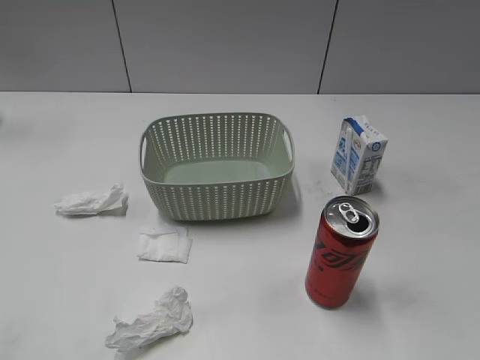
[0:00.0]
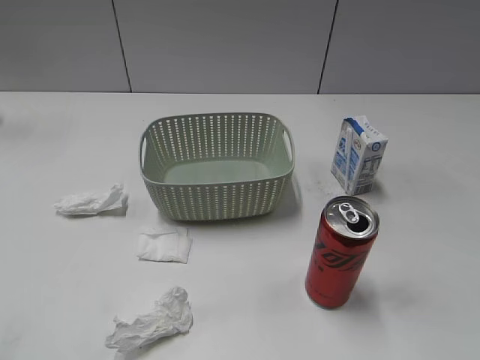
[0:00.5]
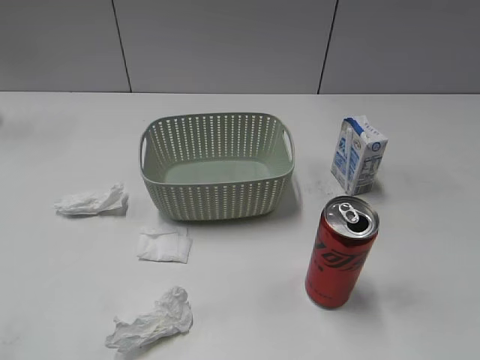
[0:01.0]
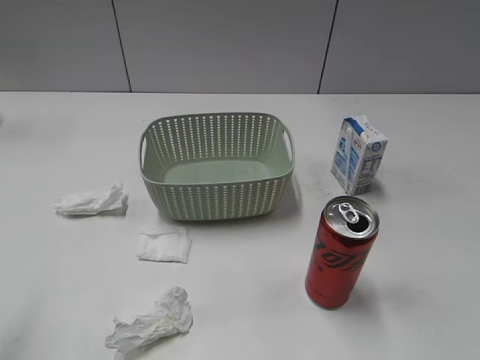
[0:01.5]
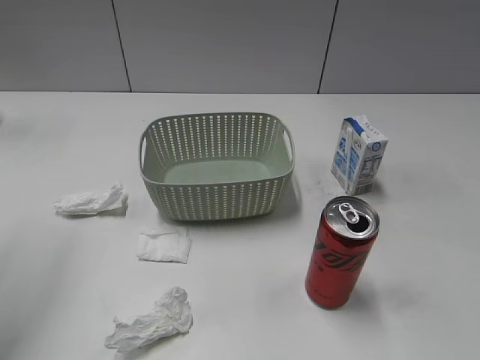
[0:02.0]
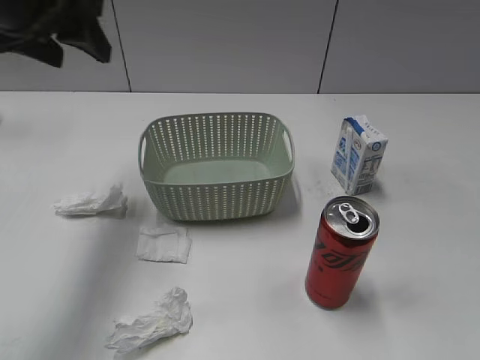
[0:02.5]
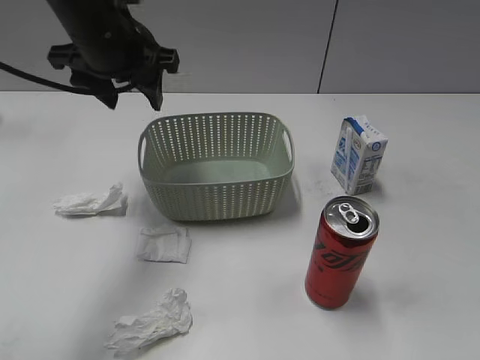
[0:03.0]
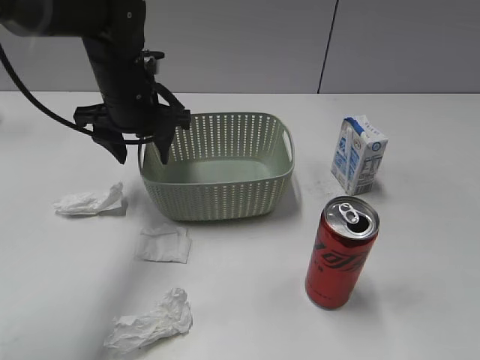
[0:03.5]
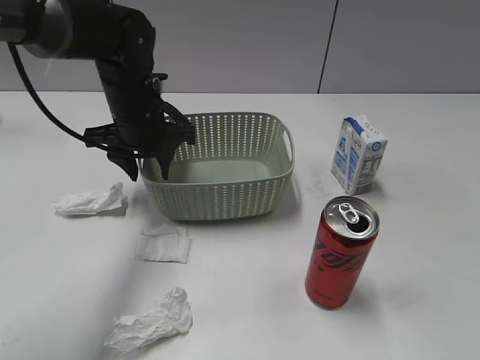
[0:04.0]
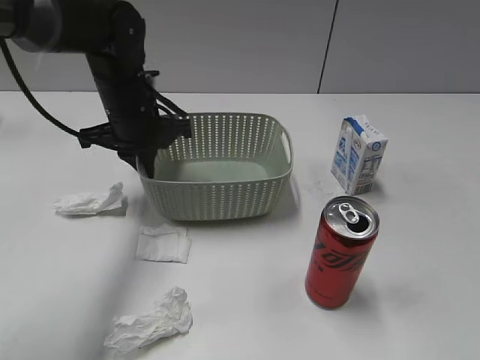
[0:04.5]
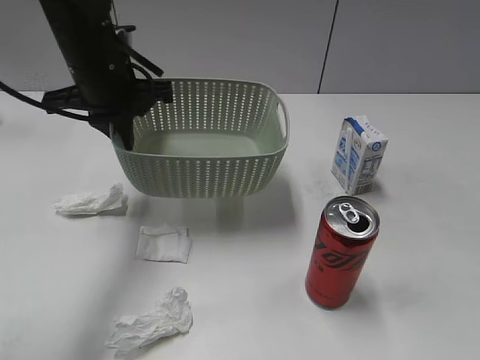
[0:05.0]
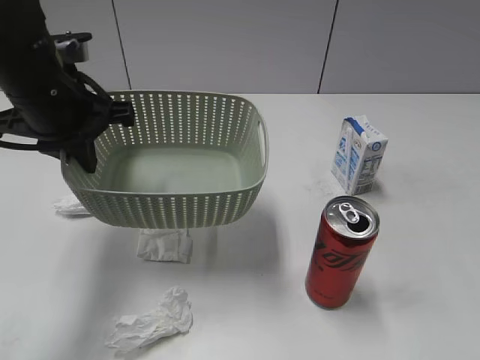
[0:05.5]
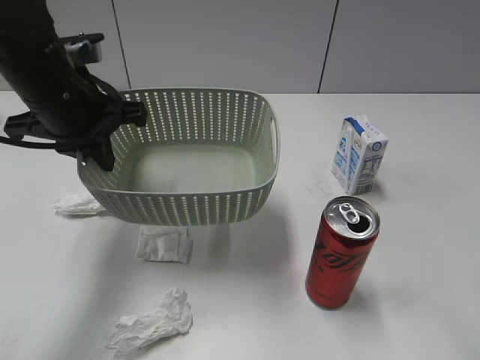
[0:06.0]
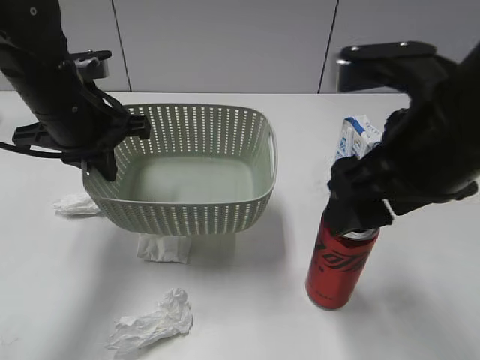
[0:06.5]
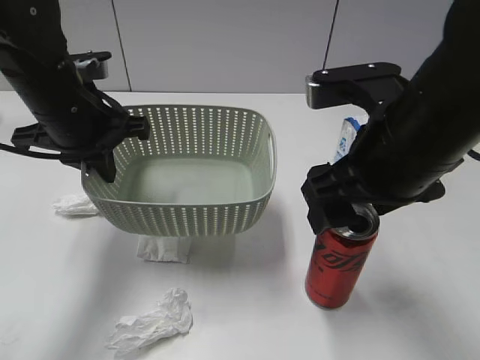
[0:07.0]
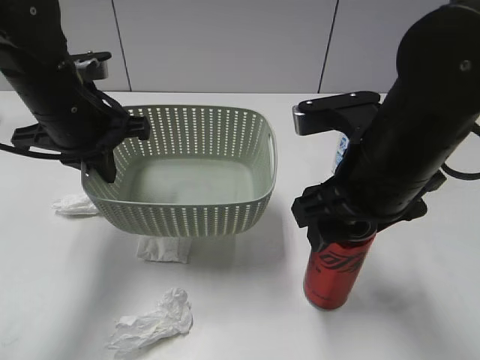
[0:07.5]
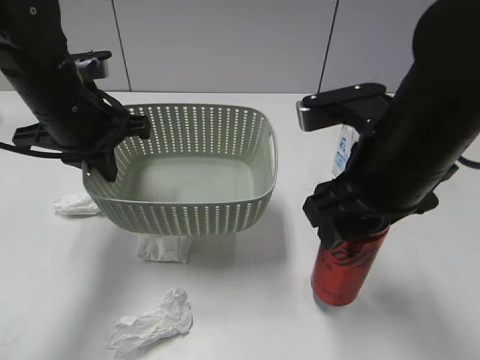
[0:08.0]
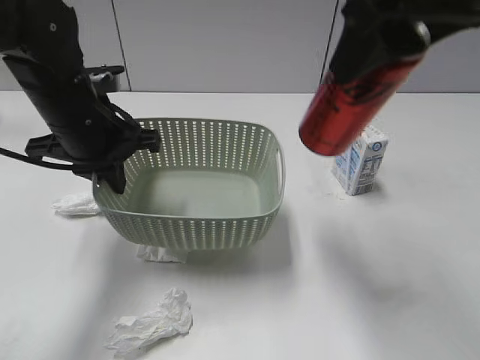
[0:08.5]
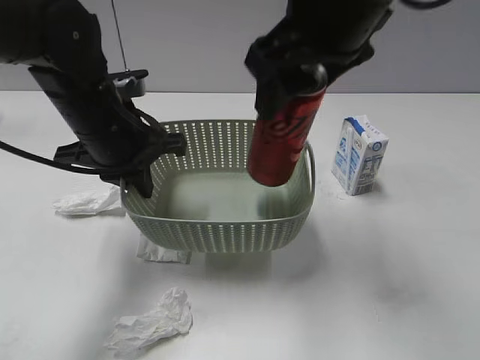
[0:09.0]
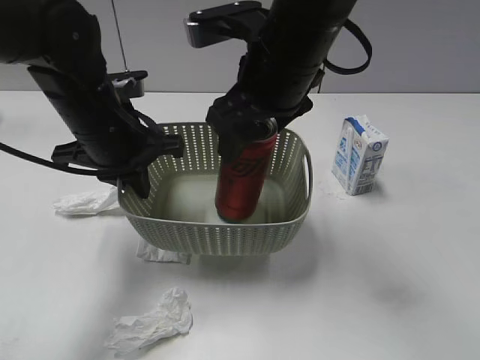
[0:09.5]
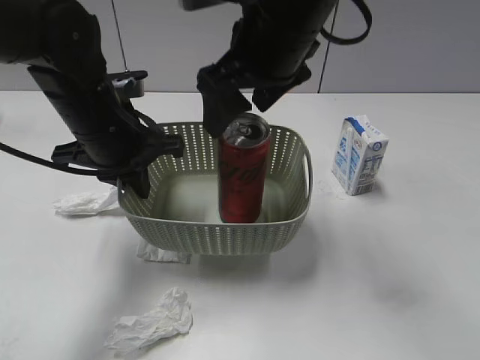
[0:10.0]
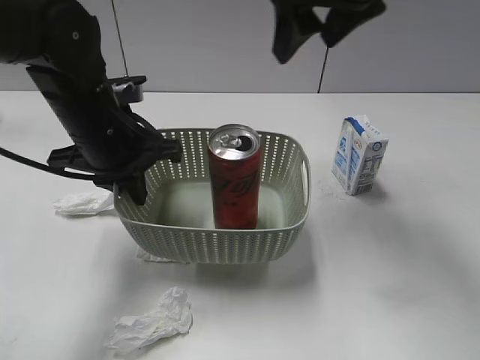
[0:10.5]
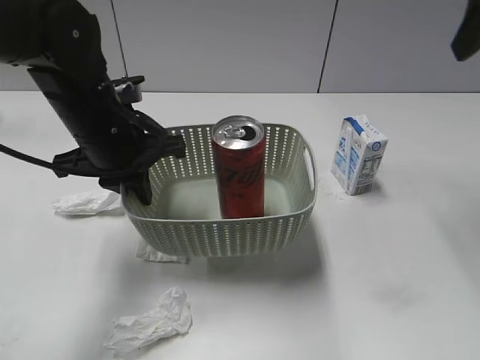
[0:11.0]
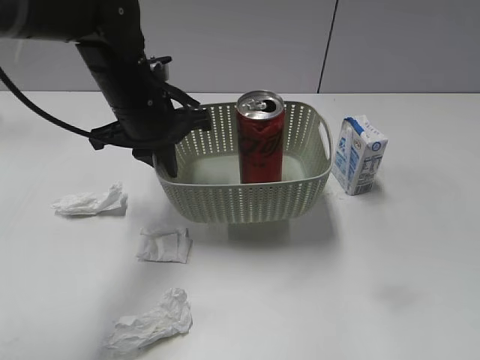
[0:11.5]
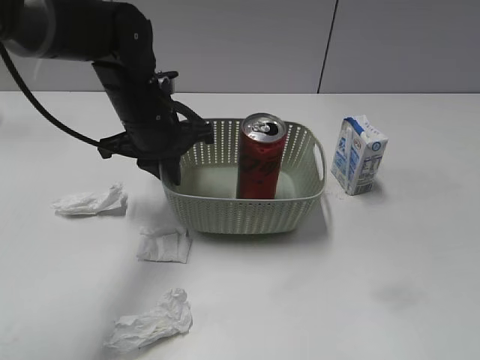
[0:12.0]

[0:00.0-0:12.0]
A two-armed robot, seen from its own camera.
Step, 0:02.5 to 0:04.0: Grasp the basket with left gripper.
Step, 0:04.5 to 0:06.0: Lift the basket with left gripper.
Step, 0:06.5 to 0:07.5: Grasp the cola can with right gripper.
Step, 0:08.0 to 0:10.0: Place the cola can in the basket with right gripper.
0:02.0 to 0:04.0: The left gripper heads downward, to the right and forward, covering approximately 30 cm.
0:04.0 to 0:06.0: The left gripper travels backward and upward by approximately 10 cm, and closes, while the right gripper shifts some 20 cm forward and upward.
0:06.0 to 0:08.0: The right gripper goes roughly 15 cm to the left, downward and forward, and closes.
0:08.0 to 0:10.0: The right gripper swings up and down, approximately 15 cm each way, with 2 reversals, and opens its fingers.
0:10.0 to 0:12.0: The left gripper moves forward, some 5 cm; the right gripper travels backward and to the right by approximately 40 cm, and closes.

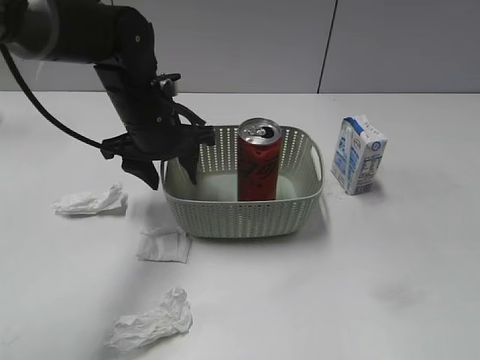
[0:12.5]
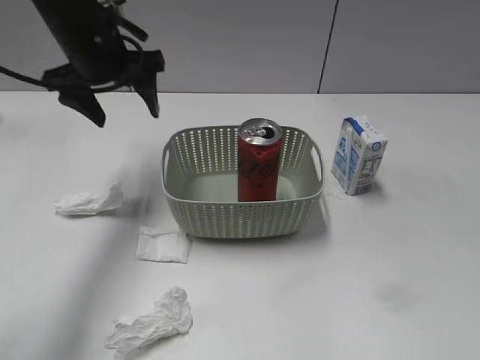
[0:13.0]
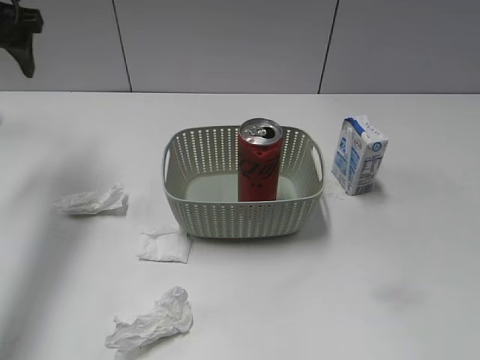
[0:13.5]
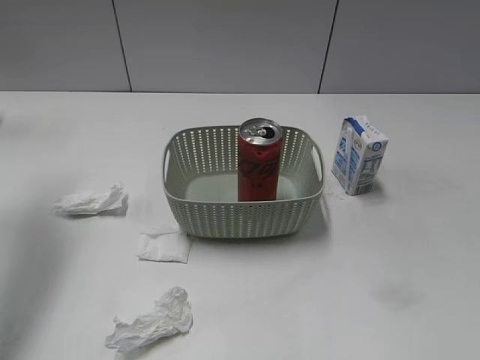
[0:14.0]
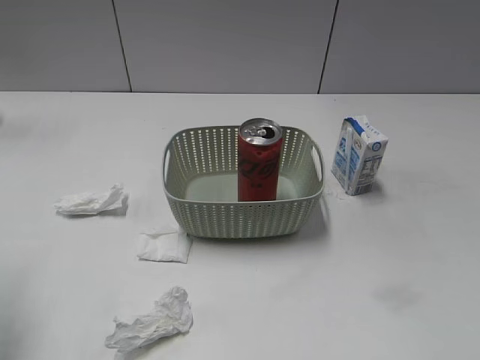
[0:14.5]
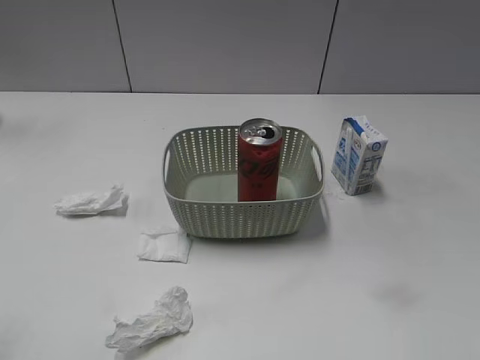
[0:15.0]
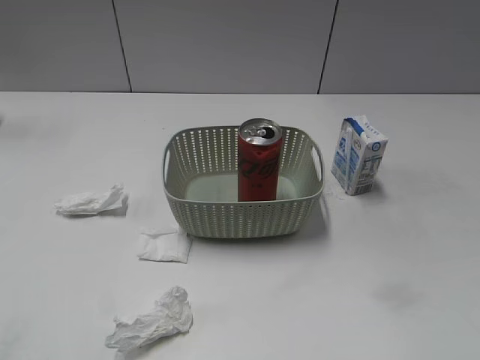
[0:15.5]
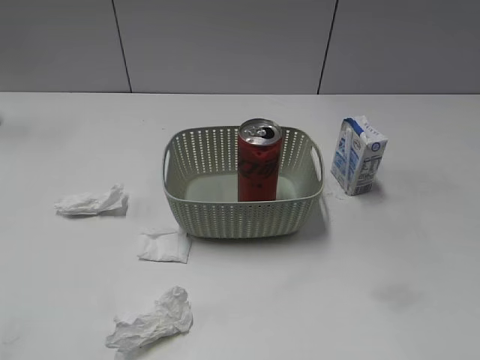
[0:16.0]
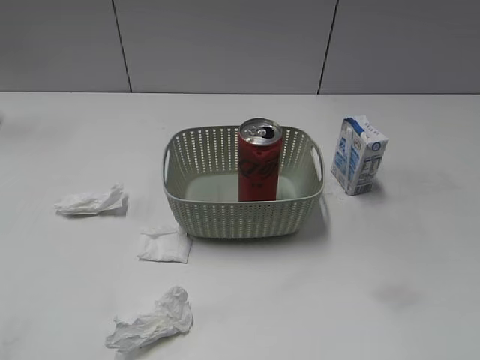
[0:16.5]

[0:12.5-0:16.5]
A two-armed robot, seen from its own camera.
0:12.5 to 0:14.5: The left gripper moves to the left, backward and upward, about 30 cm.
